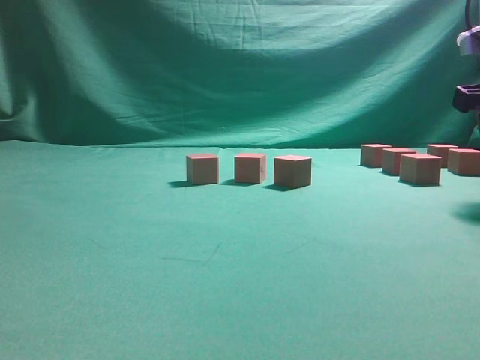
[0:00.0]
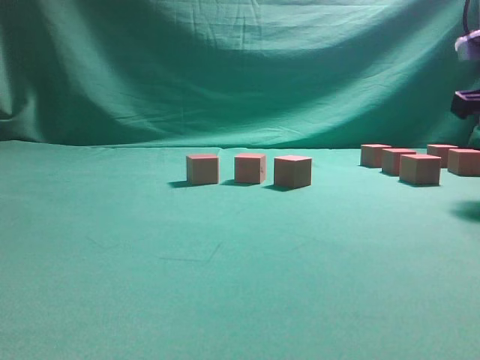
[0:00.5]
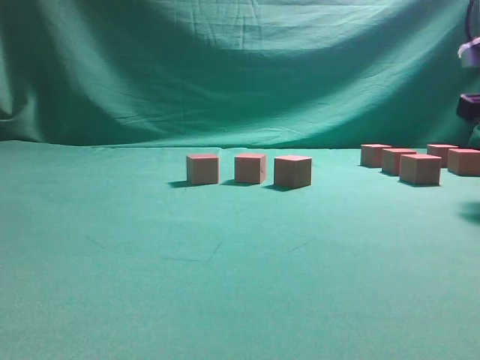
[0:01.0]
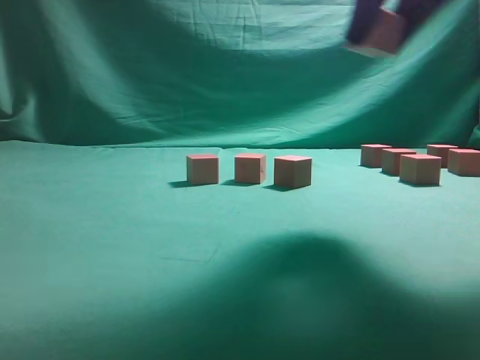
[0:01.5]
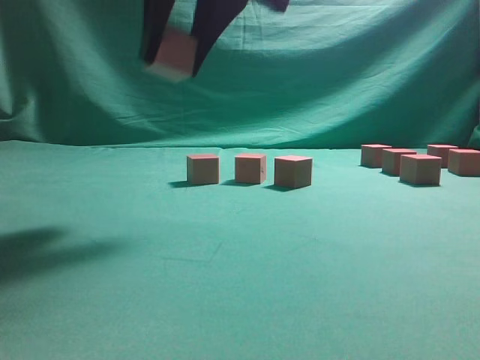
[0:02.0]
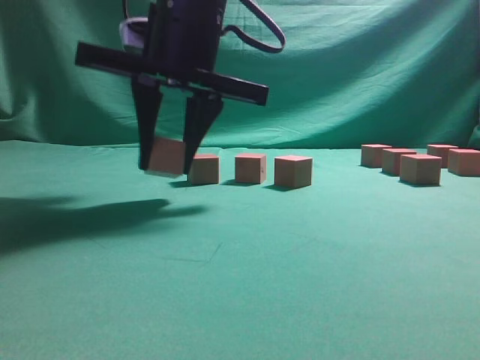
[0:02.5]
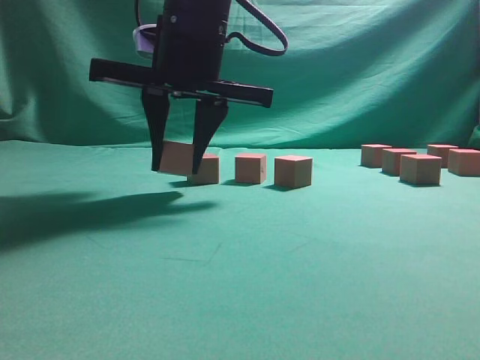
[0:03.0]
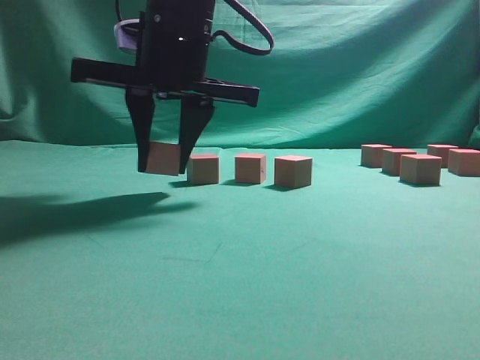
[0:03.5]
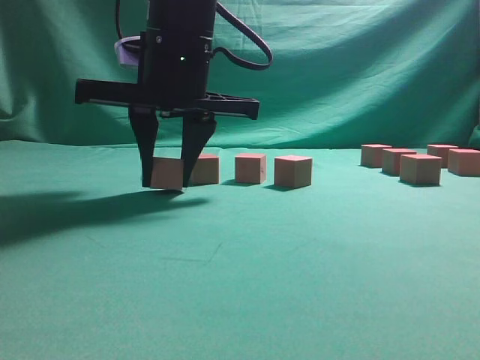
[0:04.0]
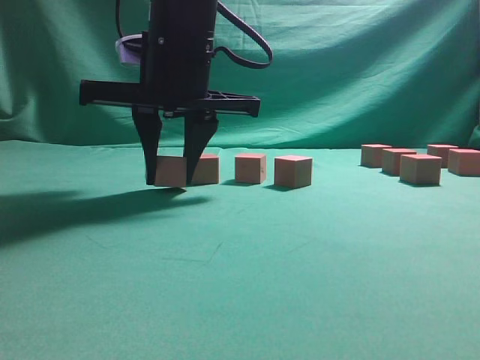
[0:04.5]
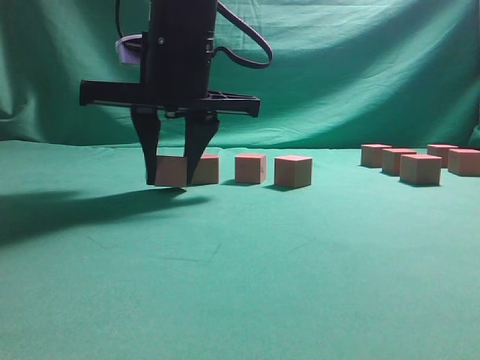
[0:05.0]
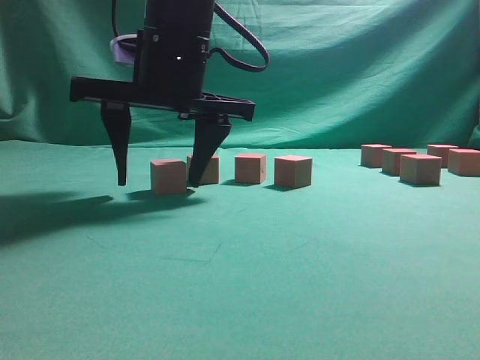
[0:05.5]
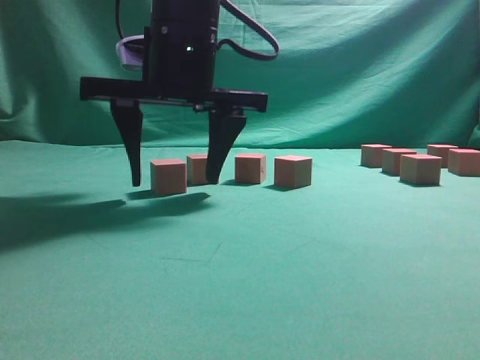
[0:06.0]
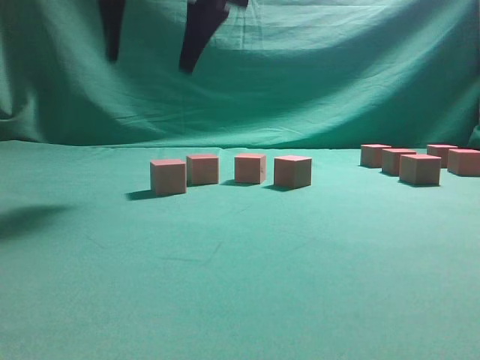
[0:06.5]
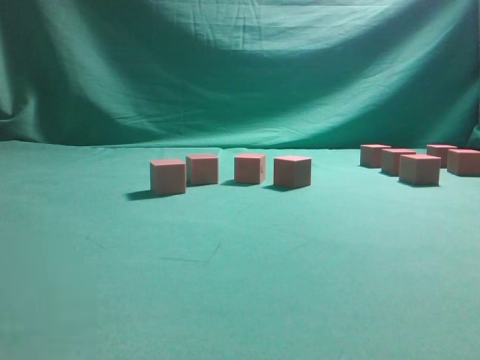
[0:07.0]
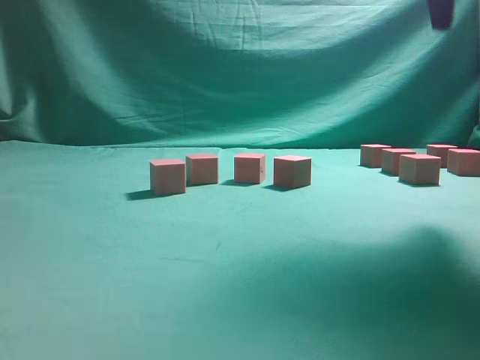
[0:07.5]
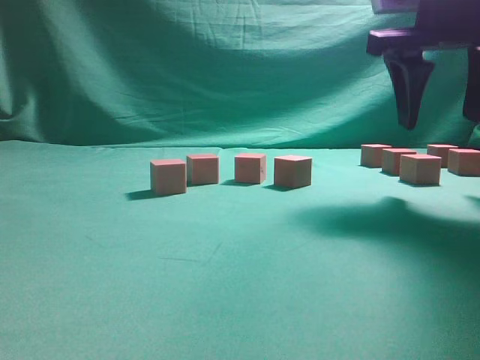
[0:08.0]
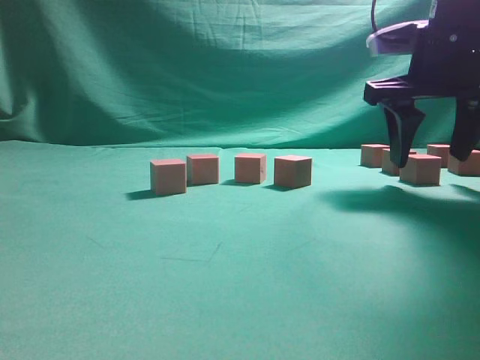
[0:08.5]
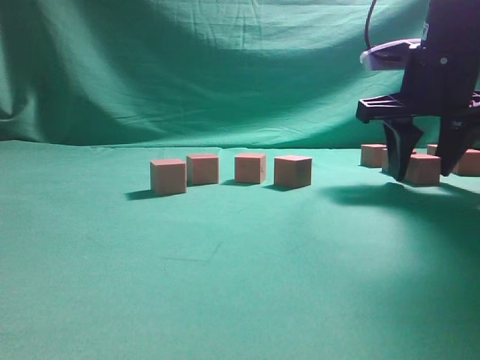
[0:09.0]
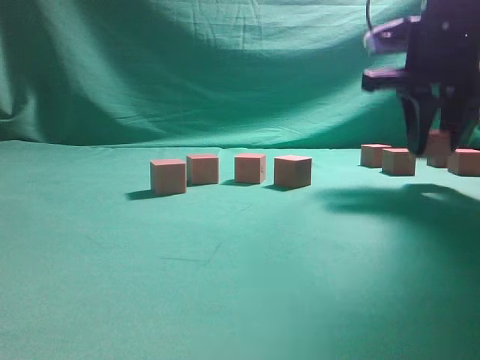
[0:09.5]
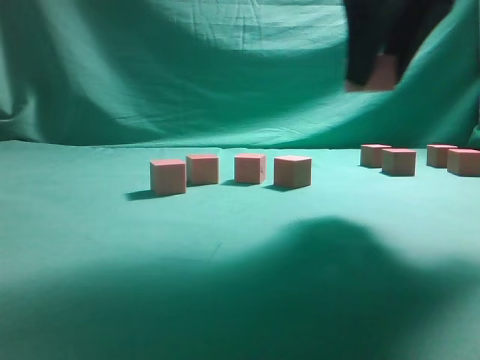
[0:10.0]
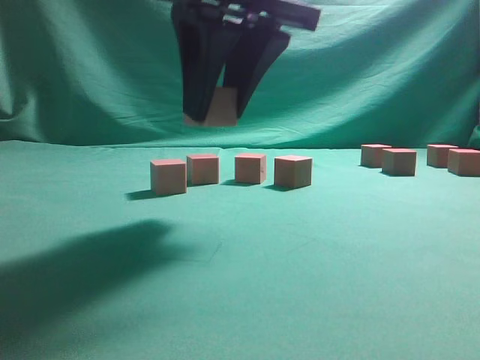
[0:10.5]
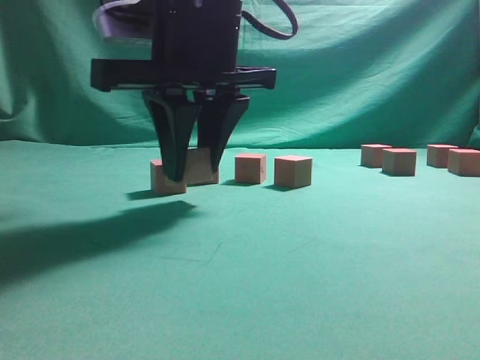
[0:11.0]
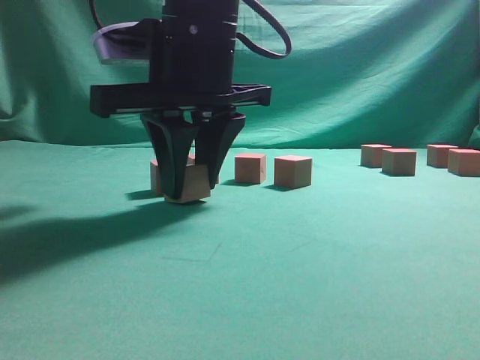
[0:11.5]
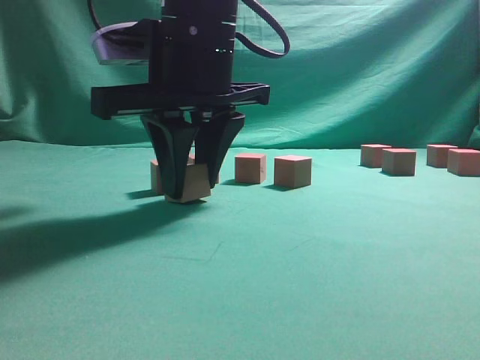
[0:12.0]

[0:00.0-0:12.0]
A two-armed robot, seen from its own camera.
Task of the whole recording: pick up the multiple cubes in two columns one by one and place them in another position on the table.
Step, 1.5 to 6.0 s: Place the block at the correct position to assemble the letter S.
Step, 7.0 to 9.5 s: Pick up the block on the table.
0.0 to 2.0 s: The right gripper moves to the left, some 30 cm.
2.0 to 4.0 s: The right gripper heads downward, covering roughly 10 cm.
4.0 to 6.0 s: The right gripper opens.
6.0 to 8.0 s: The right gripper is displaced to the right by about 25 cm, and reaches about 25 cm upward, then returns.
8.0 to 10.0 s: The right gripper goes approximately 10 cm to the left and backward, and closes.
10.0 to 12.0 s: The right gripper travels to the left and downward by some 20 cm.

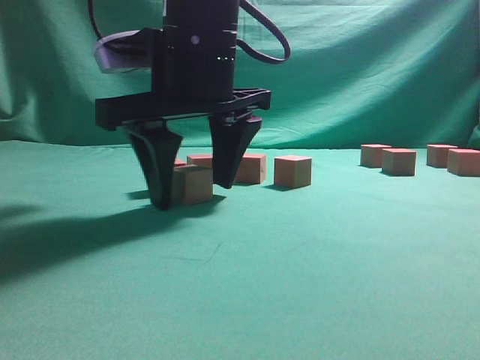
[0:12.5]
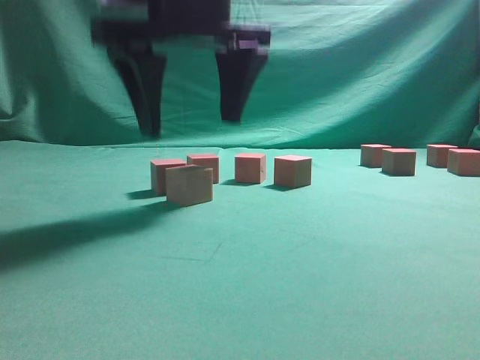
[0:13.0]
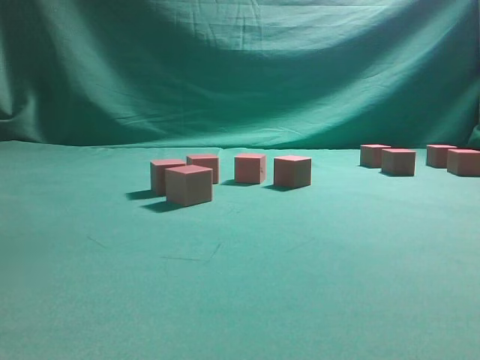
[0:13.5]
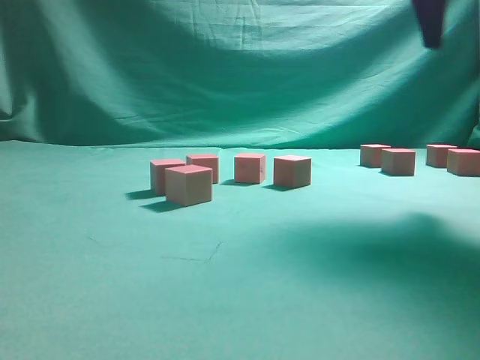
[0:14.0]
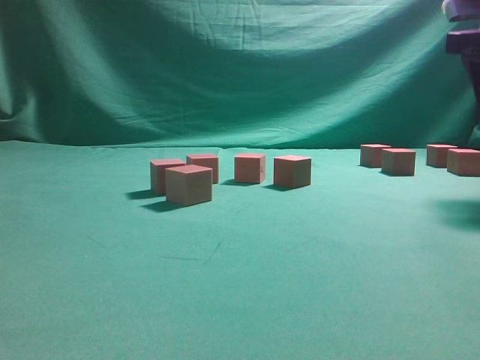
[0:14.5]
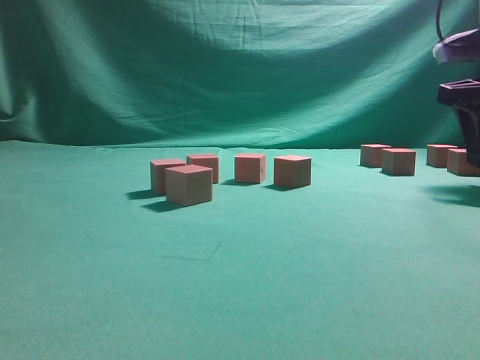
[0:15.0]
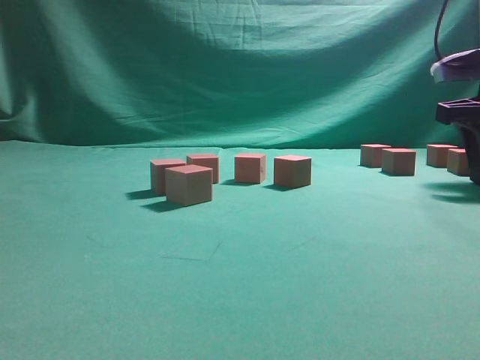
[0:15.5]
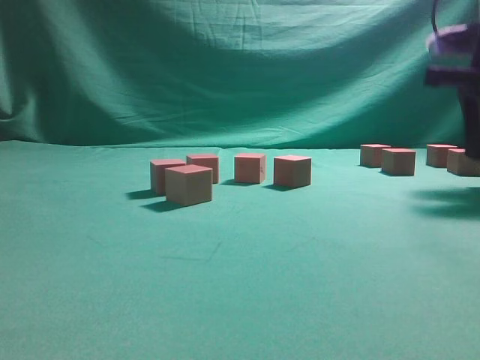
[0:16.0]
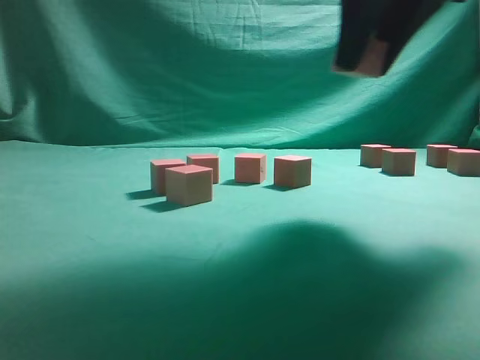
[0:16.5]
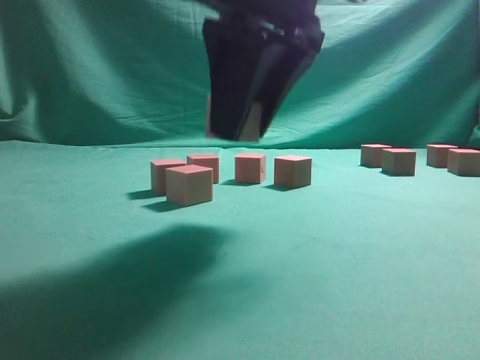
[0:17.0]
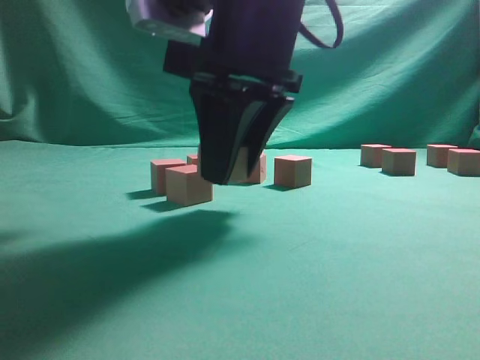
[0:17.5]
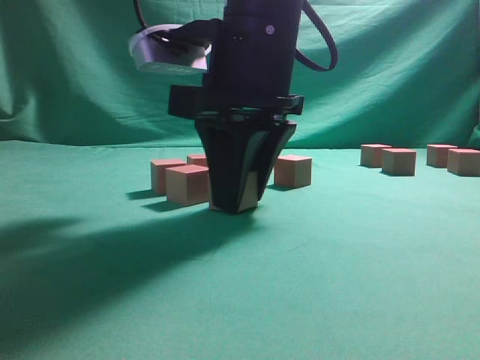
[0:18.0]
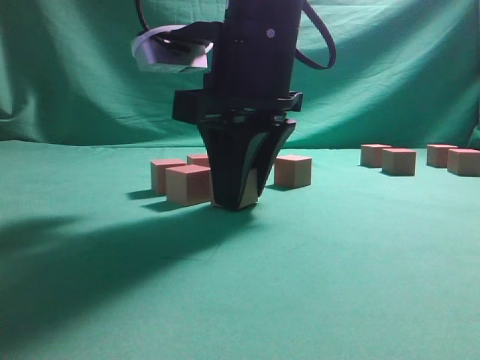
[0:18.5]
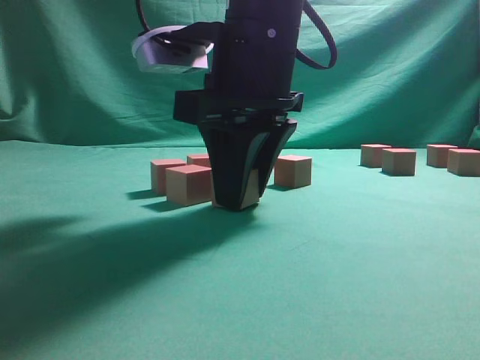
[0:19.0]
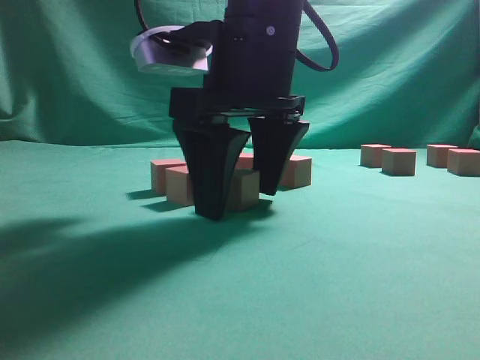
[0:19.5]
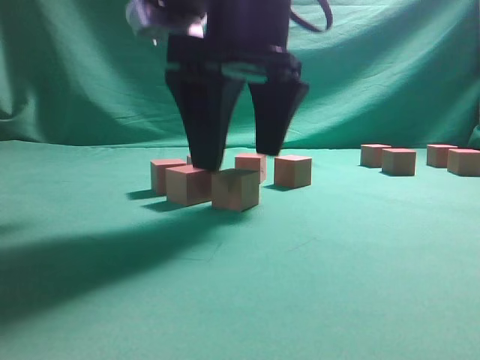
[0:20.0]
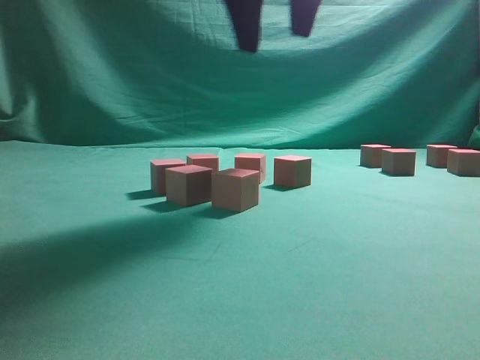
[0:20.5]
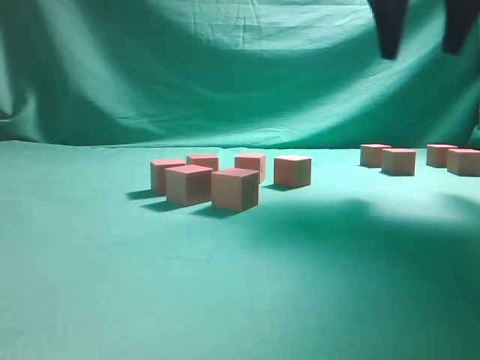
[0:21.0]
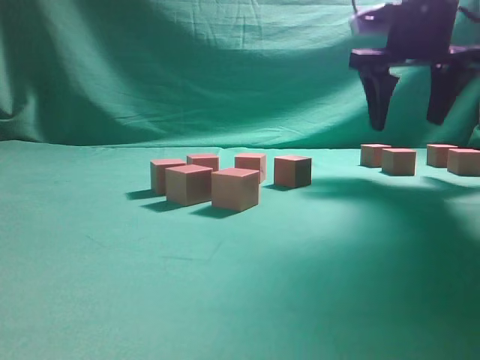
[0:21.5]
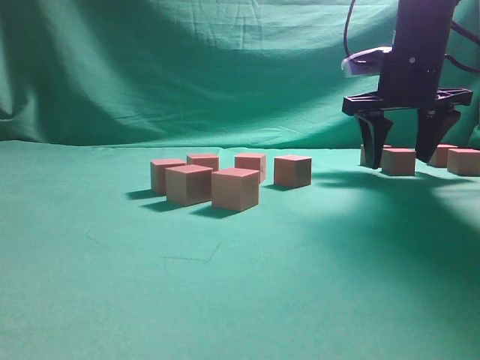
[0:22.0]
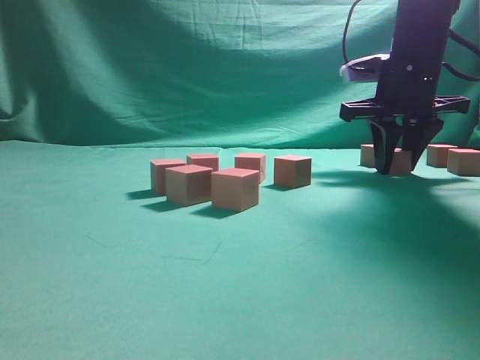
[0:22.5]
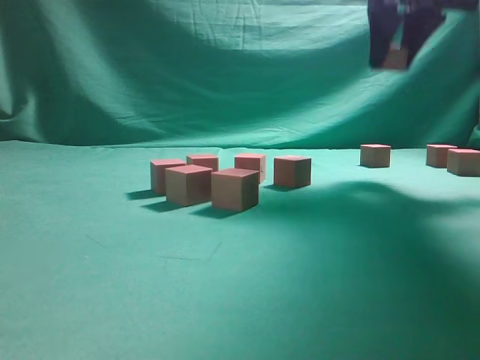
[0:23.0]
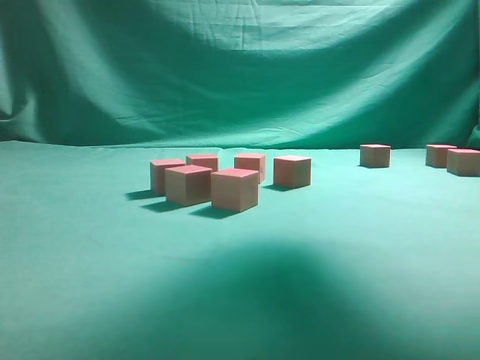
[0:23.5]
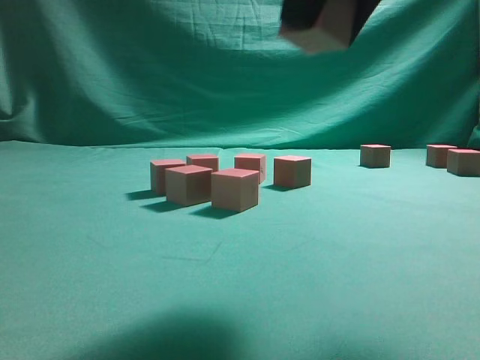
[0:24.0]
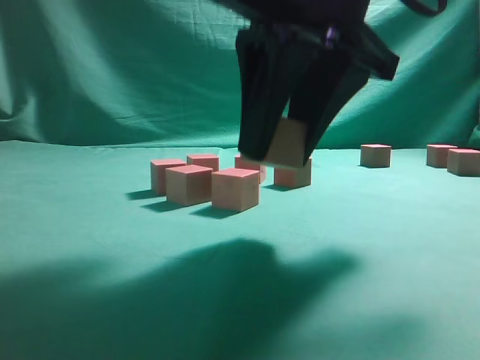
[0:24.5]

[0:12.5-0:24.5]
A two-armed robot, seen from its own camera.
Task of the whole recording: pick up the multiple cubes in two columns one by one and place them in another position on the table.
Step, 13.5 to 16.0 s: Pick up the block on the table.
Step, 16.5 to 20.0 s: Place the block at the correct position to assemble the letter S.
Step, 20.5 to 22.5 s: Pick up the block on the table.
12.5 to 14.5 s: The right gripper is displaced to the right by roughly 30 cm.
14.5 to 16.5 s: The right gripper is displaced to the left and backward by approximately 15 cm, and closes up.
16.5 to 18.5 s: The right gripper moves to the left and downward, approximately 15 cm.
18.5 to 20.5 s: The right gripper goes about 15 cm upward, and opens its fingers.
20.5 to 22.5 s: The right gripper shifts about 25 cm to the right, downward and forward, and closes.
22.5 to 24.5 s: The right gripper heads backward and to the left, covering about 25 cm.

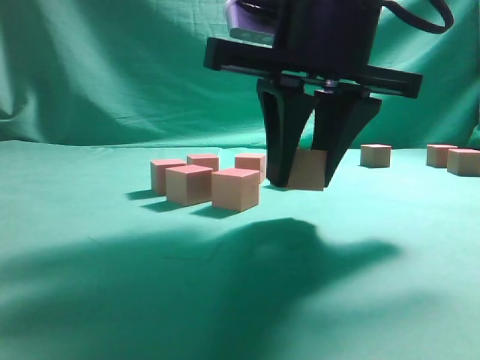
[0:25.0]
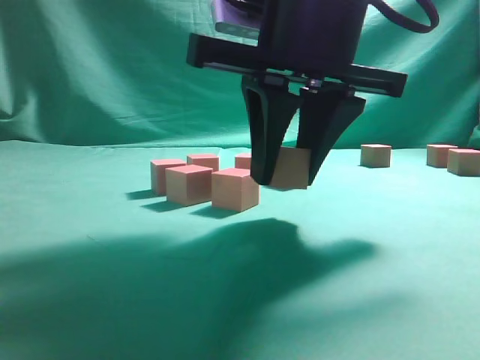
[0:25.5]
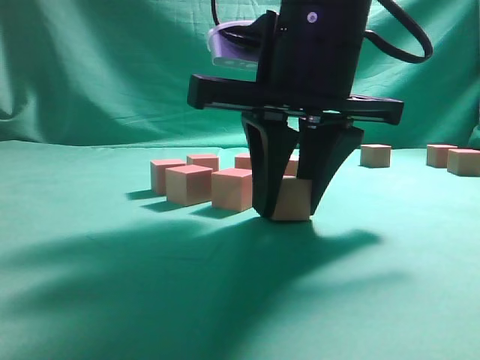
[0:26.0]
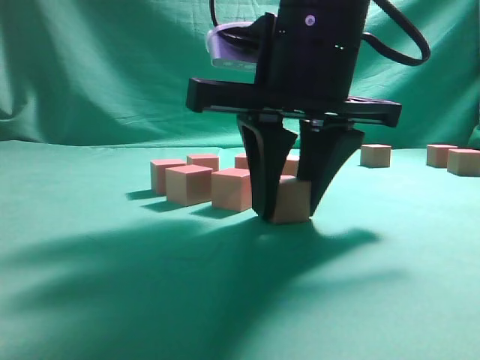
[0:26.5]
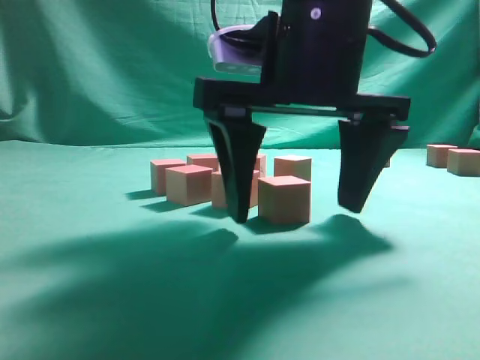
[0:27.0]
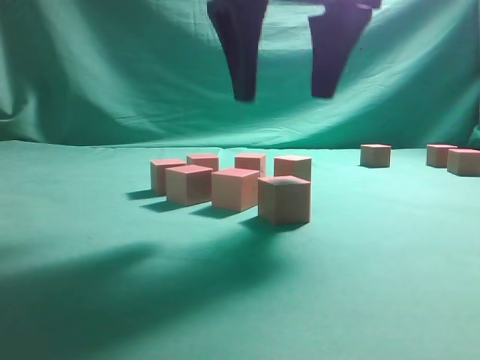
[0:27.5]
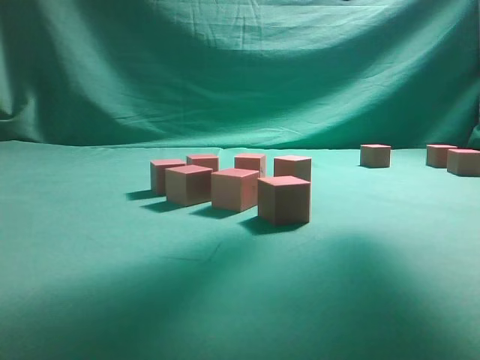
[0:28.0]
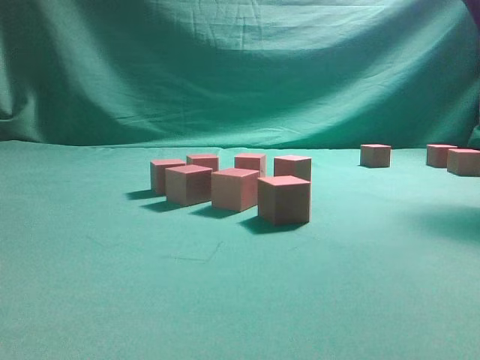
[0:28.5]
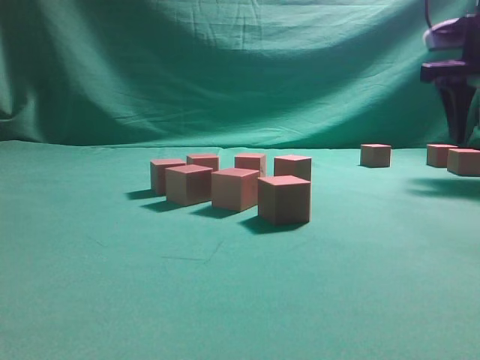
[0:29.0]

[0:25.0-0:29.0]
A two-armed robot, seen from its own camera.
Task of the whole recording: pick up the multiple cubes in two columns one by one and place them in another position on the table.
Step, 25.0 to 27.5 s: Place the block at the correct position to assemble the letter S.
25.0 to 27.0 s: The right gripper opens.
27.0 to 29.0 s: The right gripper goes roughly 30 cm to the right and forward.
